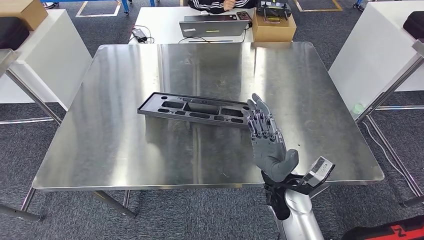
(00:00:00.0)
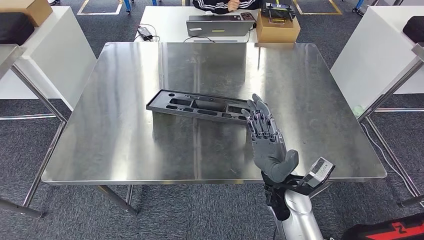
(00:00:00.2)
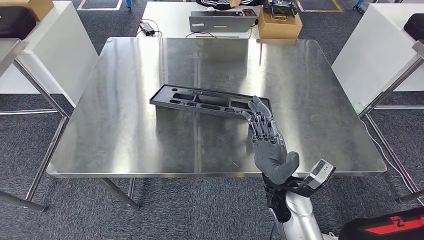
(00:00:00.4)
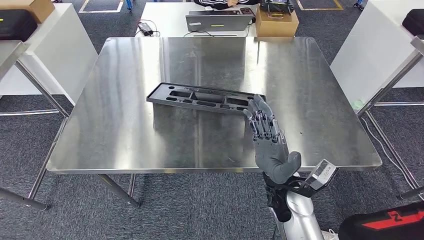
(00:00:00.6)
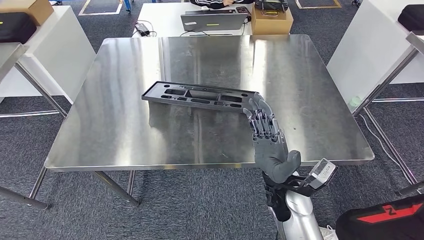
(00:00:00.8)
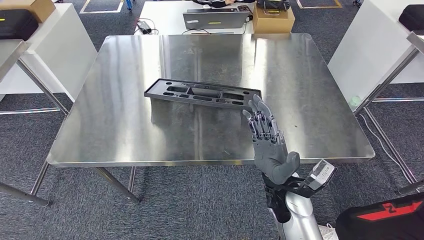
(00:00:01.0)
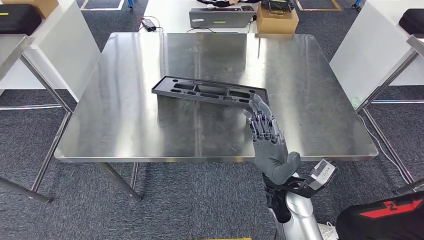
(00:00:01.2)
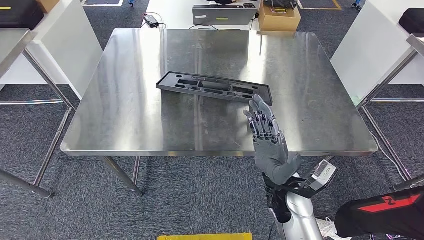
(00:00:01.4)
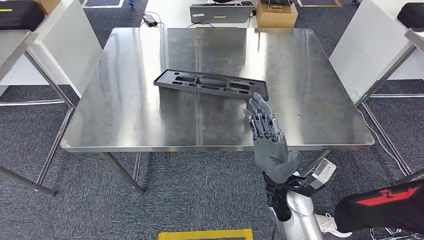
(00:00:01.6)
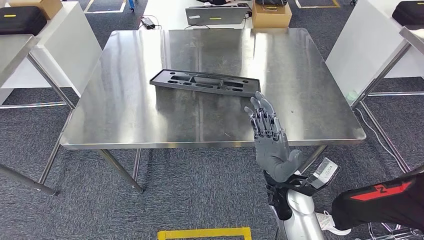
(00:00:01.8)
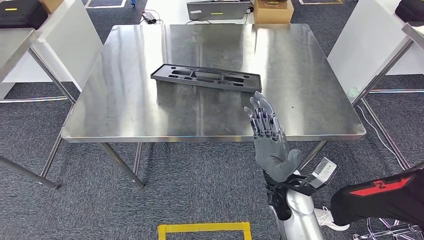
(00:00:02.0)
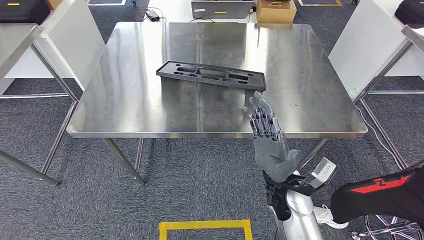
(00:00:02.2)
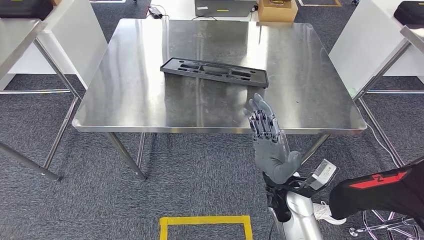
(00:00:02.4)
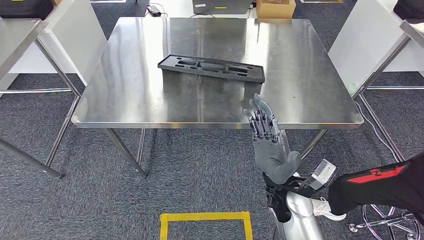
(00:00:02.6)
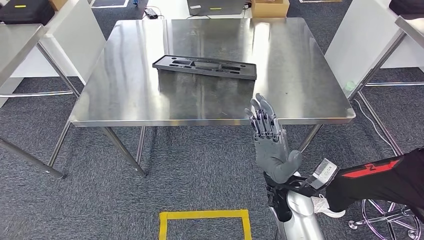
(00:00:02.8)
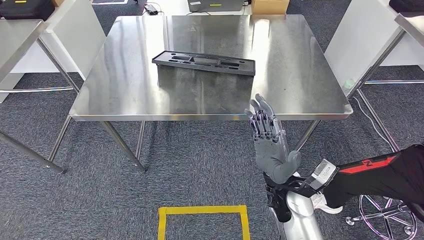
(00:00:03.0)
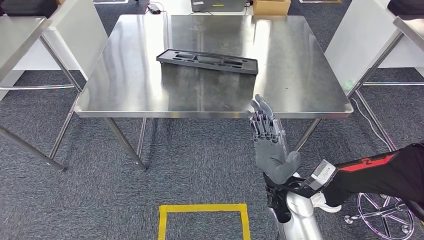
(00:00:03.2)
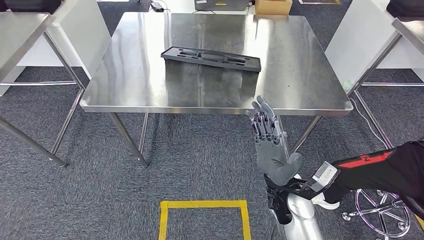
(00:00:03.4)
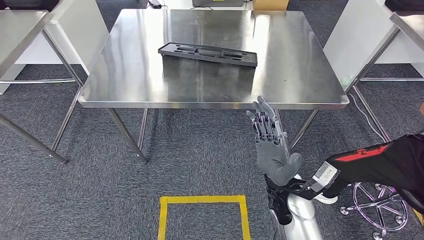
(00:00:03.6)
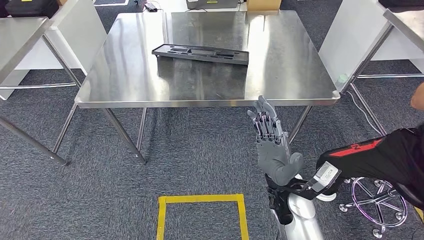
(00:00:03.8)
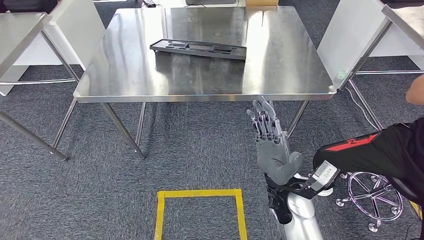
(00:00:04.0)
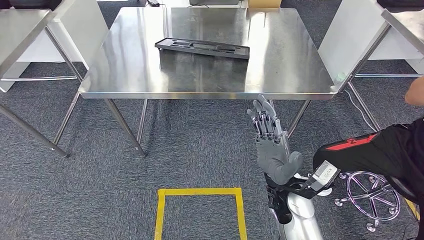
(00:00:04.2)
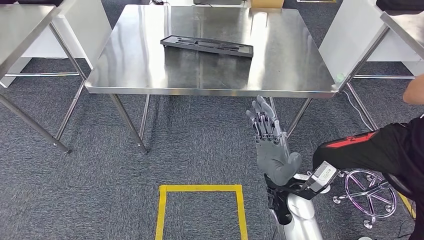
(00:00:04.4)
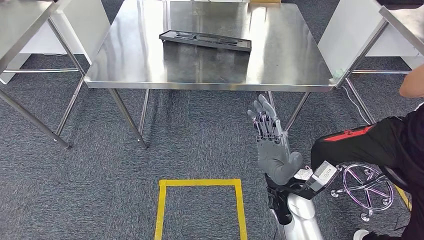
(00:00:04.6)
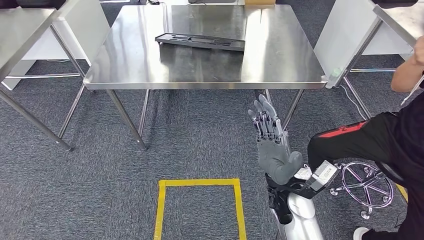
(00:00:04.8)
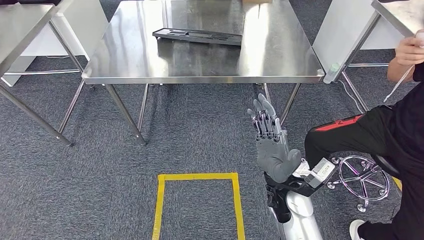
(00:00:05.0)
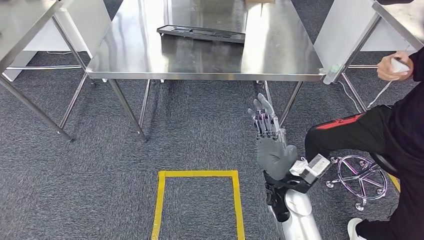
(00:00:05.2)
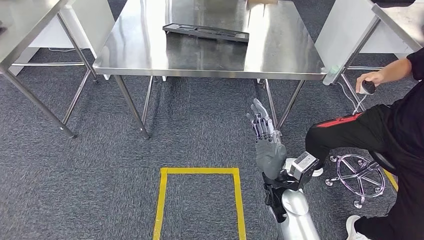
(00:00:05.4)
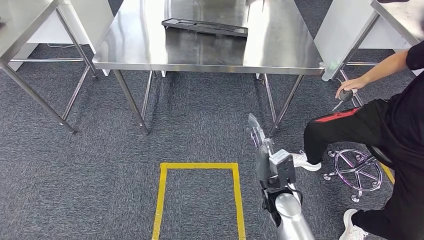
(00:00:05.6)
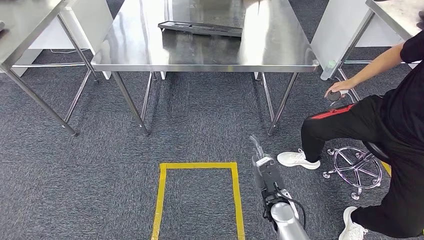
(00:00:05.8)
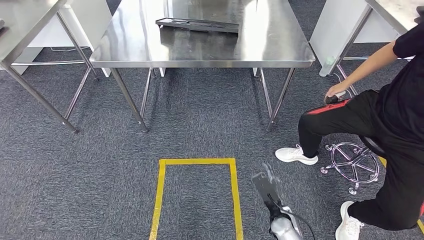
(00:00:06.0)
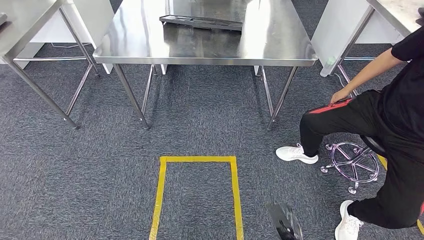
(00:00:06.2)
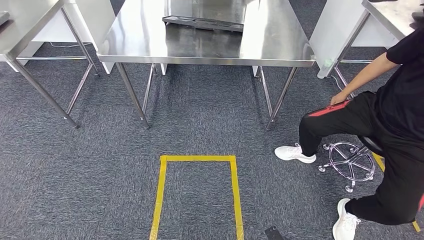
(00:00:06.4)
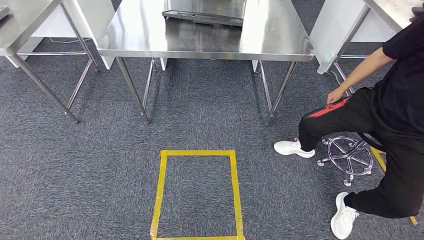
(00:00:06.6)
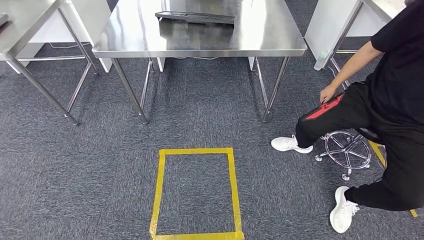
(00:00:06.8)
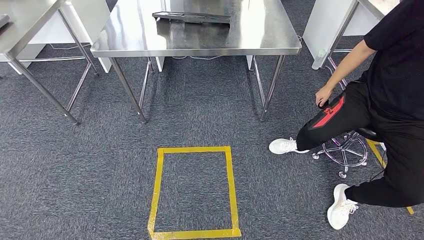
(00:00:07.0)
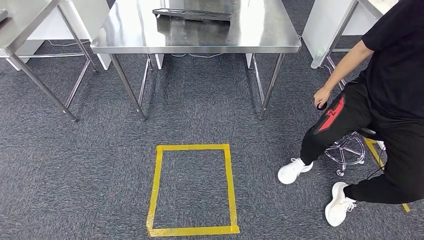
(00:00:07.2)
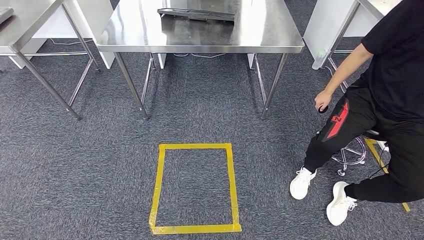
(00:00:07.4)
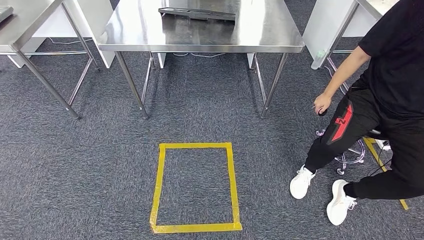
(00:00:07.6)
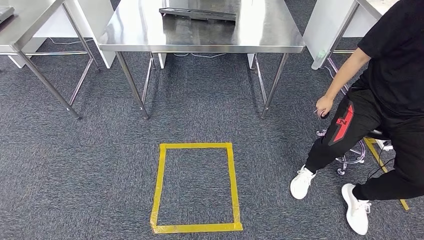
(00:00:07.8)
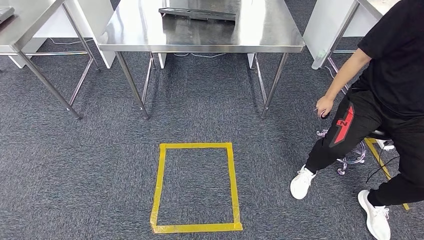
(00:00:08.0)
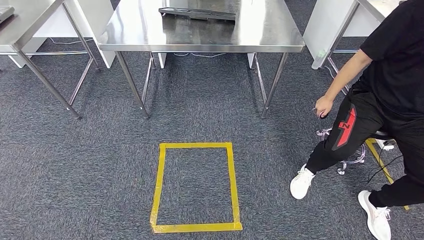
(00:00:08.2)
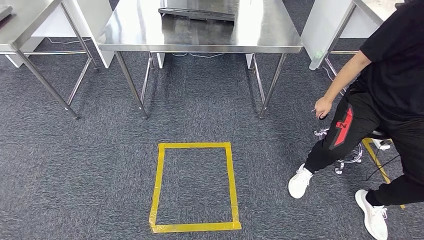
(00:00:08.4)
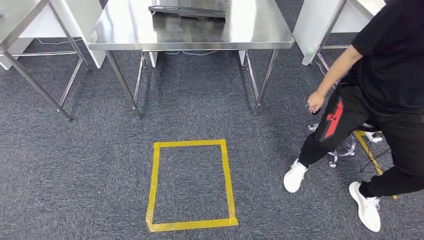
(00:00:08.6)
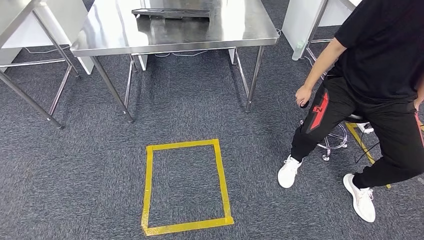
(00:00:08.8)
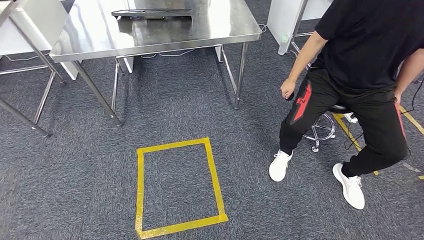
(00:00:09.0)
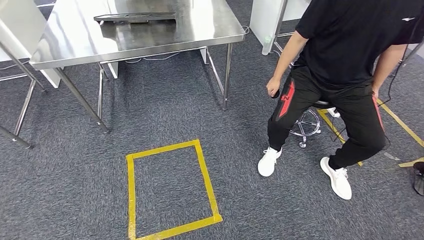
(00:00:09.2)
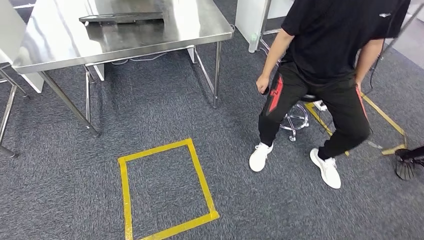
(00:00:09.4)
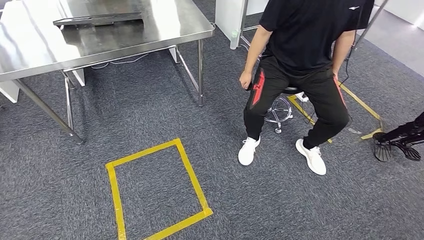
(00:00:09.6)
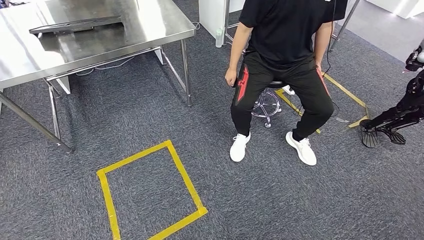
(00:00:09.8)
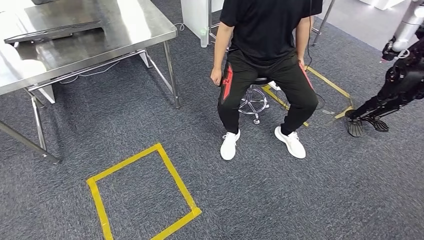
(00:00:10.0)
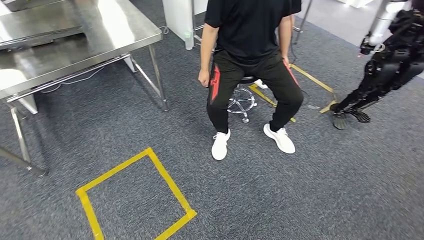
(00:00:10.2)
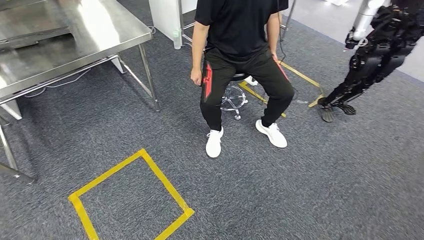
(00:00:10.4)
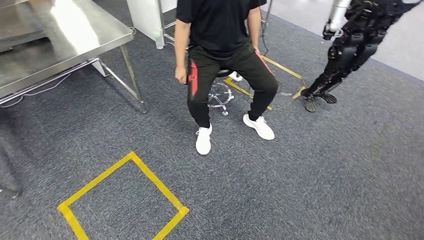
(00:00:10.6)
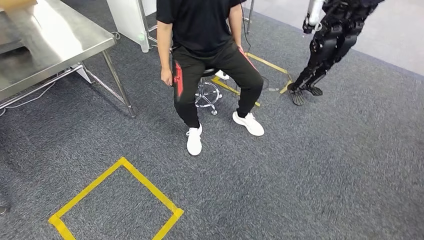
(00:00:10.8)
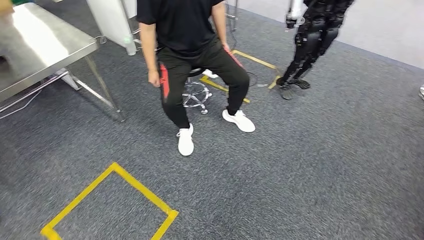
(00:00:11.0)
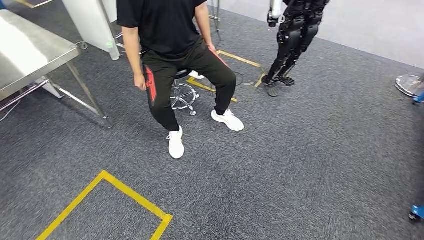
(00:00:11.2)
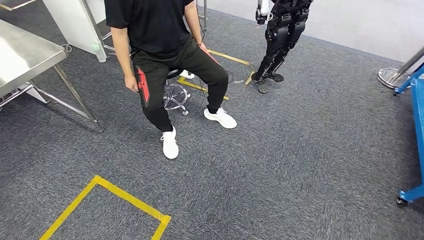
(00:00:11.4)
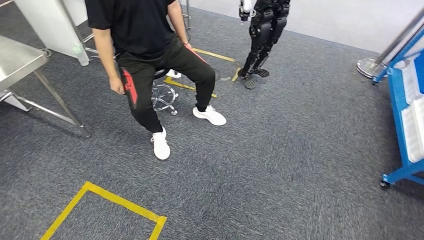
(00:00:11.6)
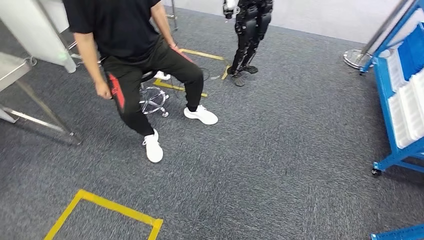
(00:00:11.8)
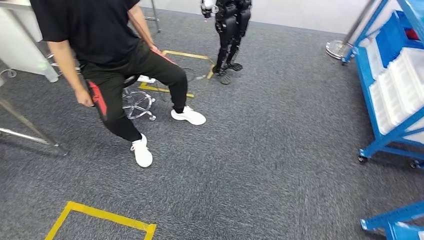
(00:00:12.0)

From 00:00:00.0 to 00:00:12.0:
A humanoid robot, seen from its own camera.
Step, from 00:00:00.0 to 00:00:05.2: Insert the large material into the corresponding slot on the workbench.

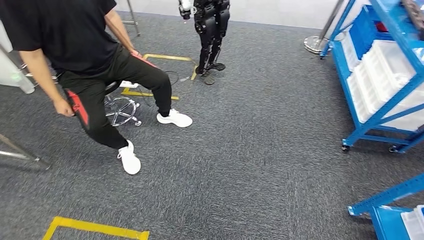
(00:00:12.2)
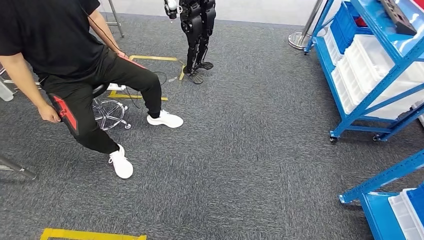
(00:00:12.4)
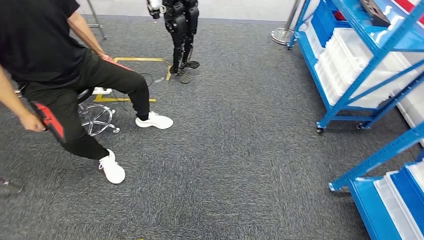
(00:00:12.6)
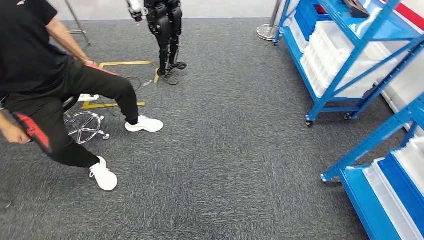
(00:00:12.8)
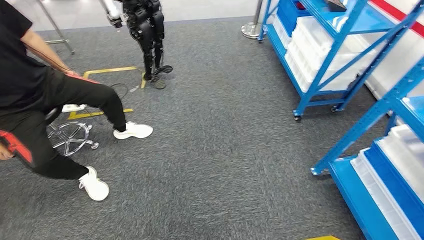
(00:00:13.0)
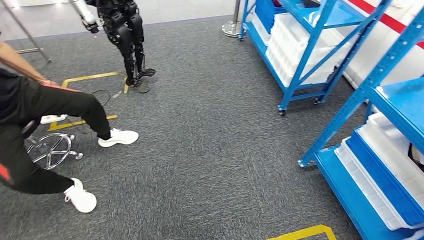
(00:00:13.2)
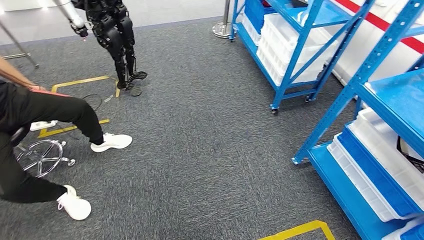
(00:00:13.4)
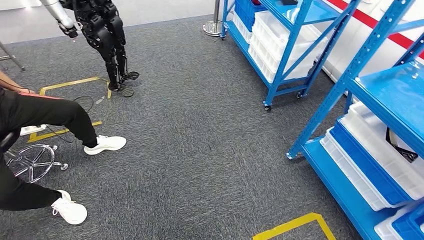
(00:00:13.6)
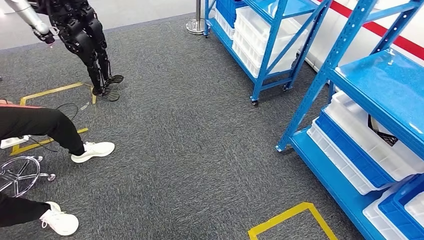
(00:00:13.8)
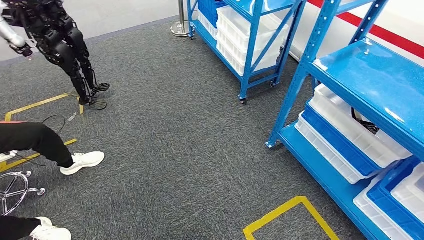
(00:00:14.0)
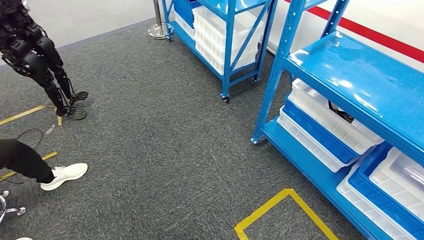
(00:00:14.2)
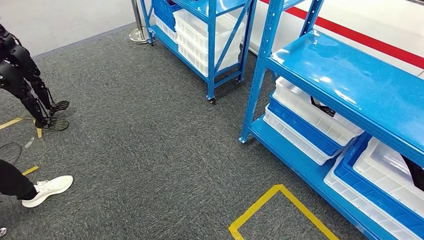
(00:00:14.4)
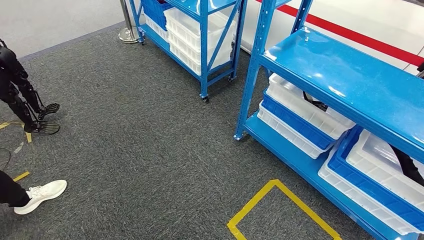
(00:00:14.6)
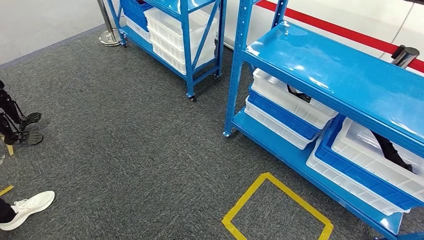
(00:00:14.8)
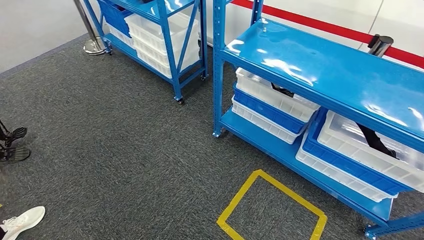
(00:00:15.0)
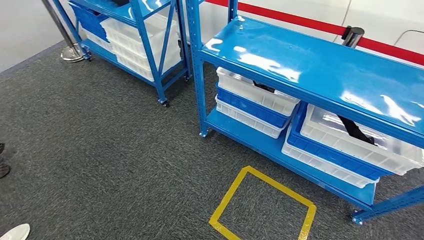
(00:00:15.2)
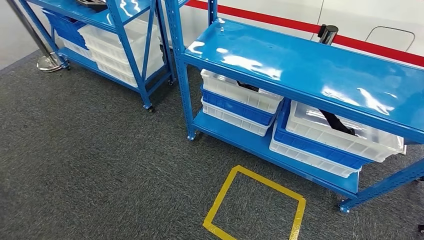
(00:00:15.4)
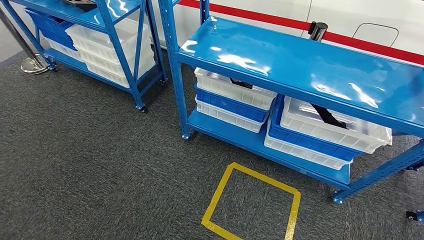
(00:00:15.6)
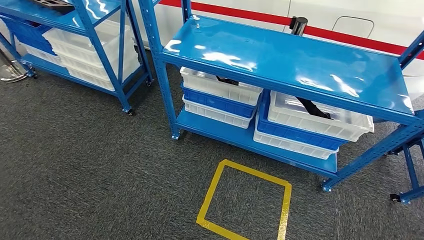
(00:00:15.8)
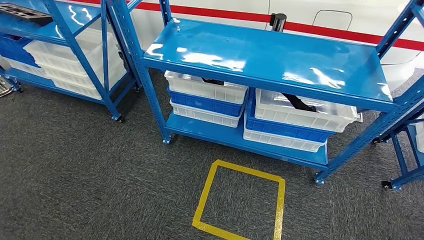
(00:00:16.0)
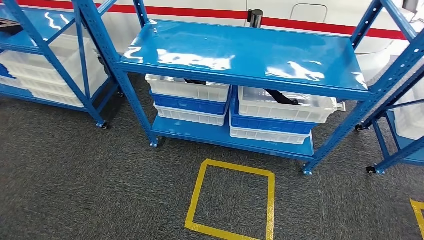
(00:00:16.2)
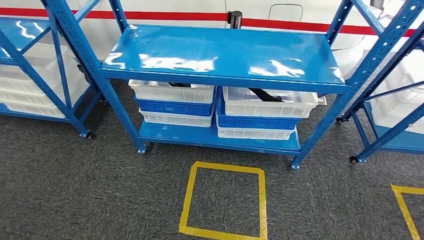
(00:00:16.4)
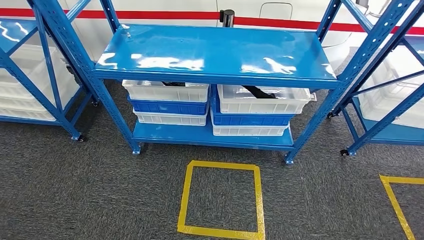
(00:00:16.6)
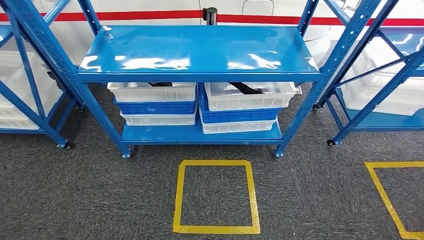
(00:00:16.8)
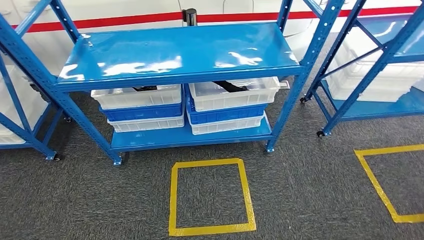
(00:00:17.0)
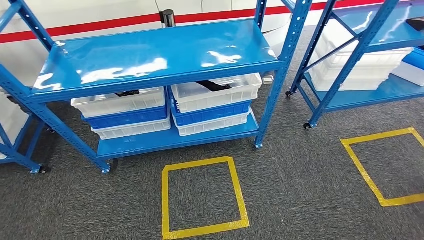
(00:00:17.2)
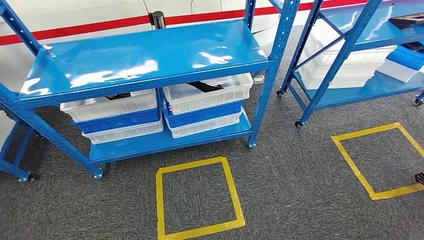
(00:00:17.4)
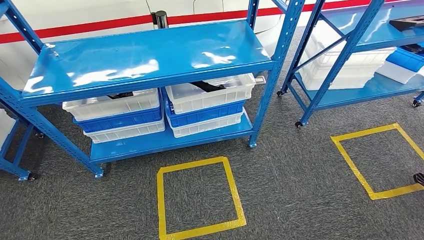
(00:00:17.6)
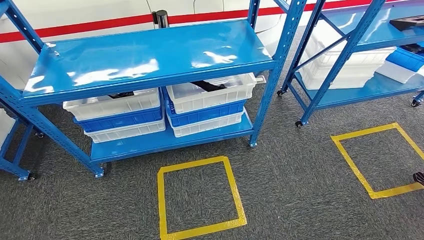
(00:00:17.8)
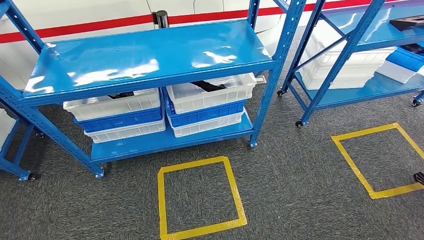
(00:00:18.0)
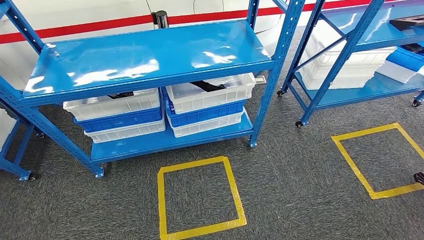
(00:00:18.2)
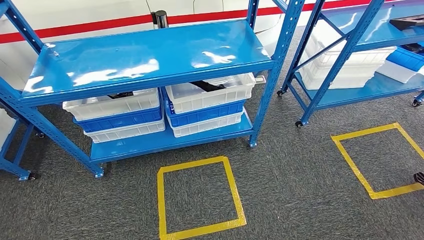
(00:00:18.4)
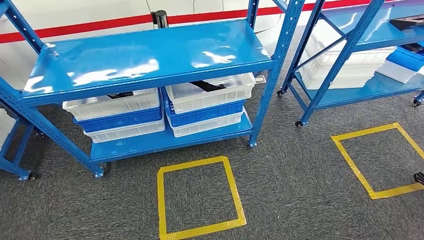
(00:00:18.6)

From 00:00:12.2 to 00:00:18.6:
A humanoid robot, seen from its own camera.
Step, from 00:00:12.2 to 00:00:18.4: Move to the initial position of the shelf.
